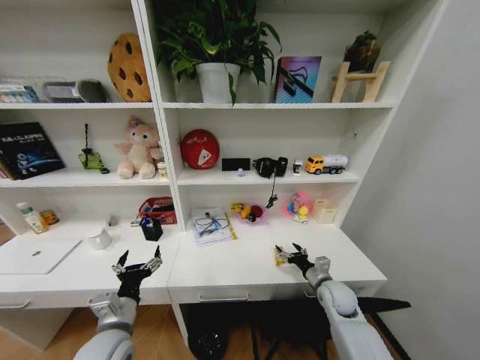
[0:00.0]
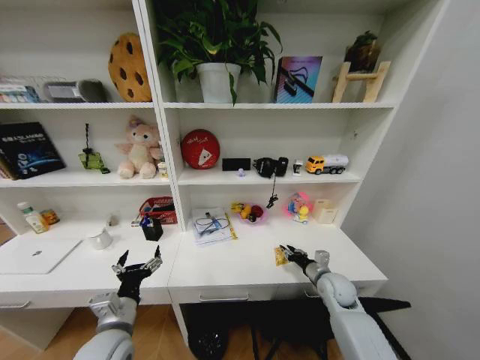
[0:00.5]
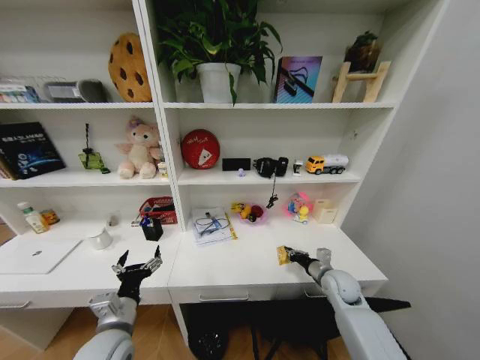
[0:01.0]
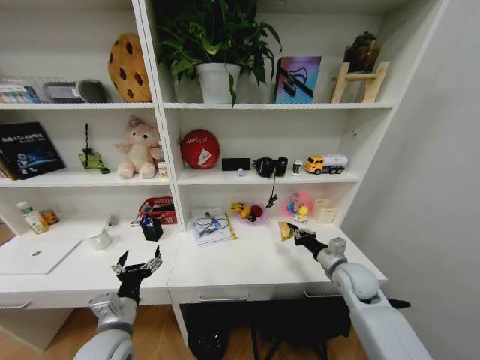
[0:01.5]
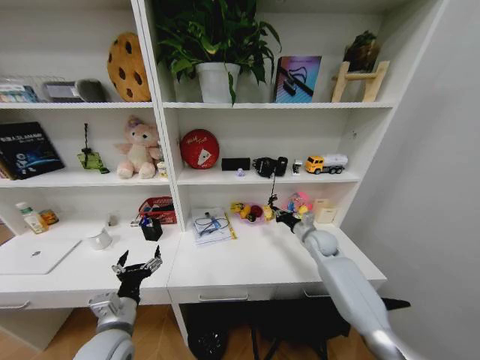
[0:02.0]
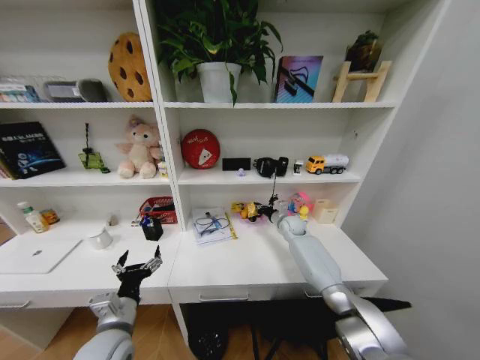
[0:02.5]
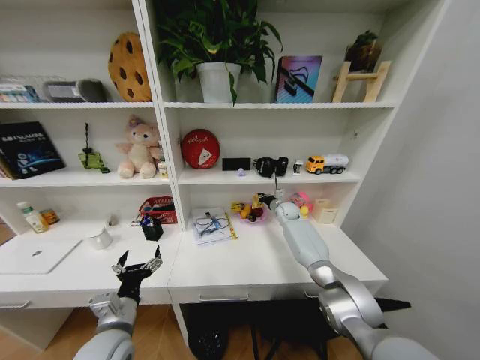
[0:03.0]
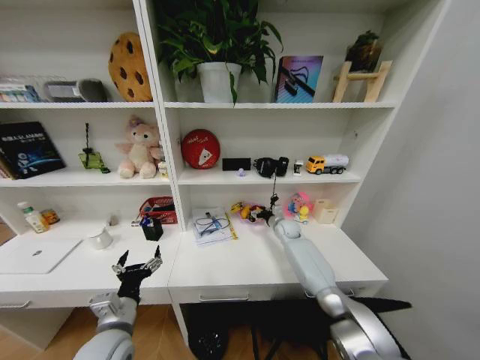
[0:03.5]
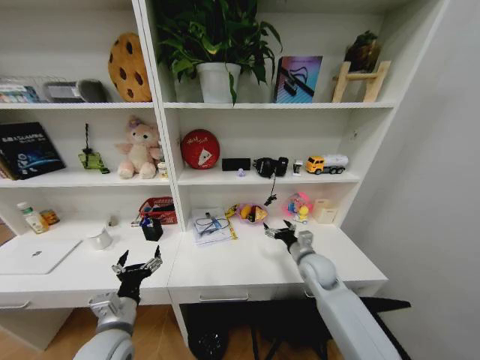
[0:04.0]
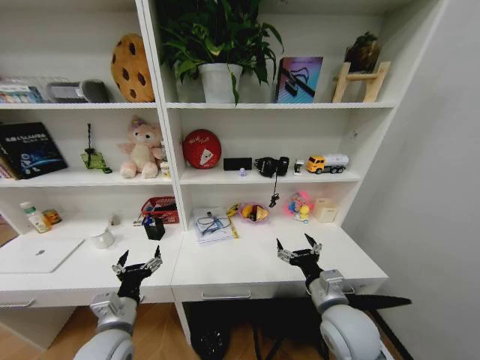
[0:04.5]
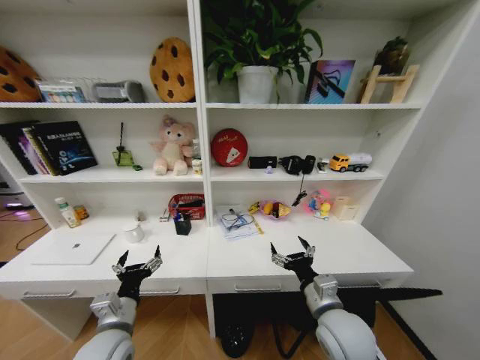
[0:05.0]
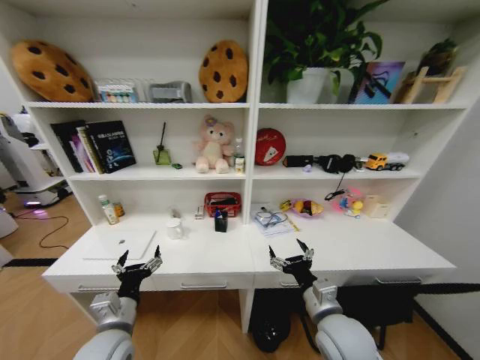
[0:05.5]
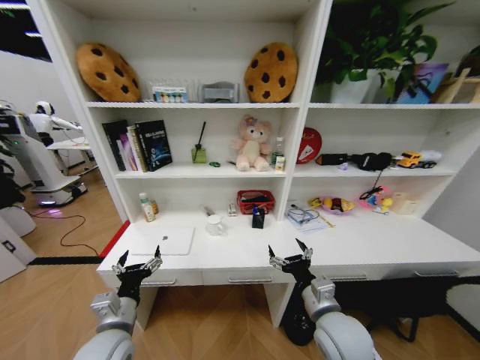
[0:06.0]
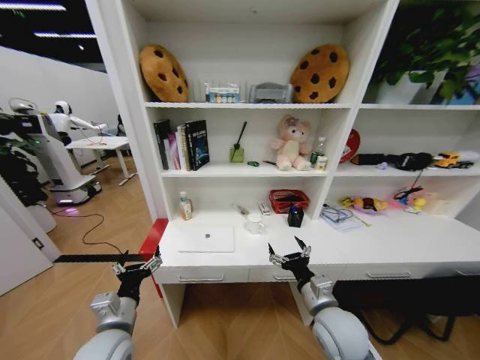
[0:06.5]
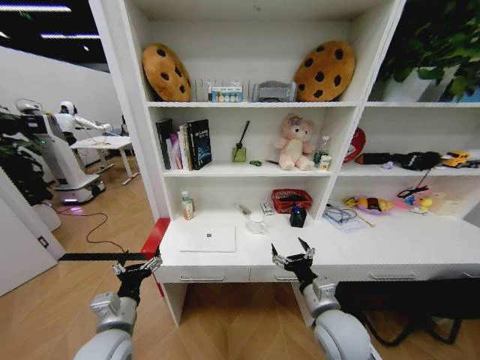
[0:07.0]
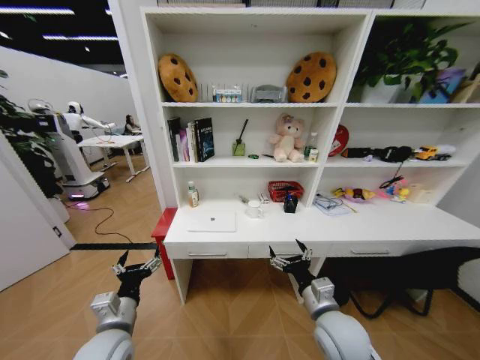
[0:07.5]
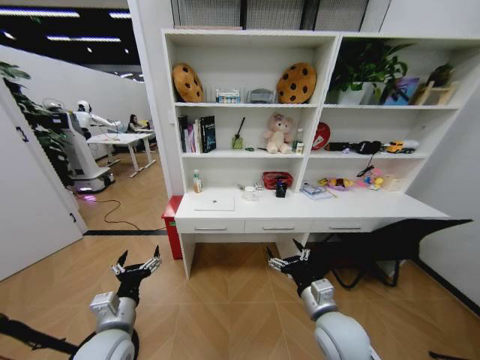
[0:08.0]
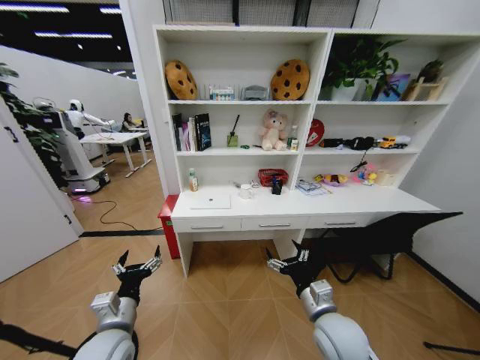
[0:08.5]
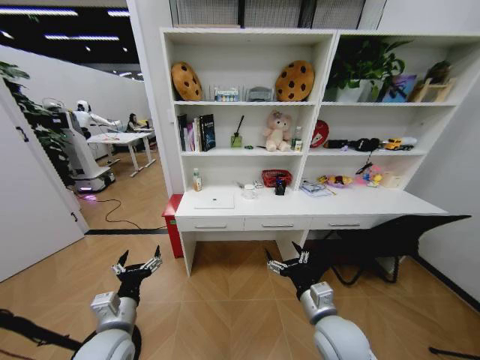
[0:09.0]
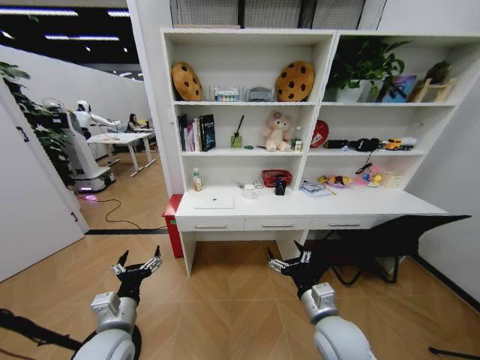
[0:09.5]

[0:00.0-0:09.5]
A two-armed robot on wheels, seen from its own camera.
Task of the whole recording: Organize the objects on the table.
0:00.0 to 0:02.0: The right gripper is displaced forward and upward by roughly 20 cm, and closes.
0:02.0 to 0:04.0: The right gripper moves backward and to the left, some 15 cm, and opens up.
0:04.0 to 0:05.5: The right gripper is displaced backward by approximately 20 cm.

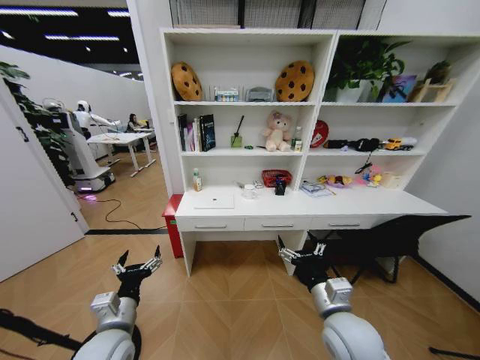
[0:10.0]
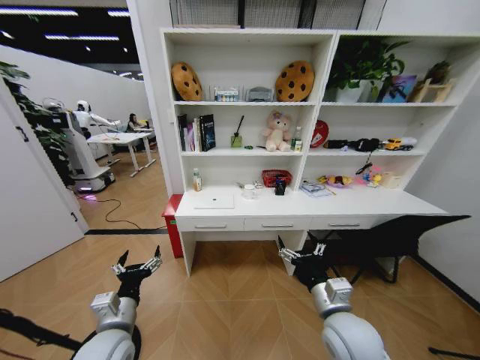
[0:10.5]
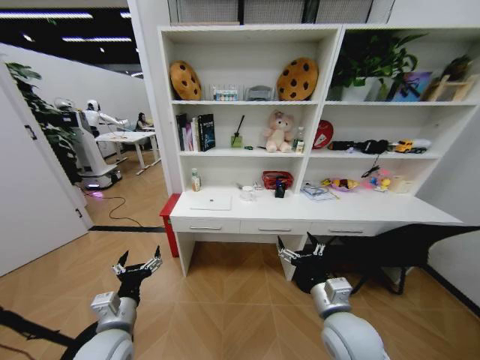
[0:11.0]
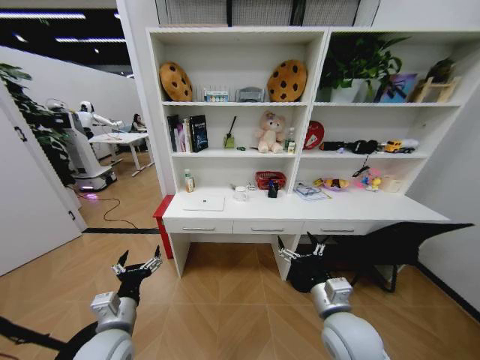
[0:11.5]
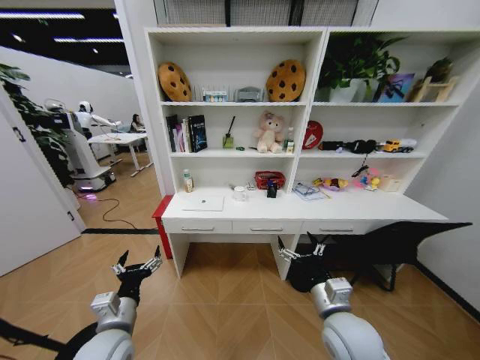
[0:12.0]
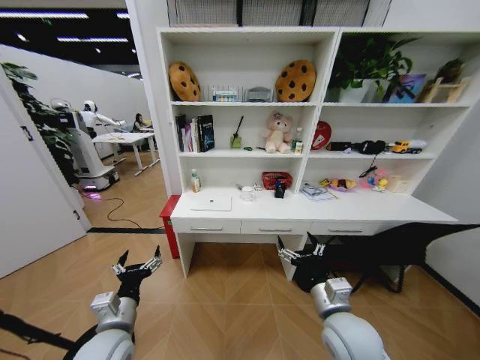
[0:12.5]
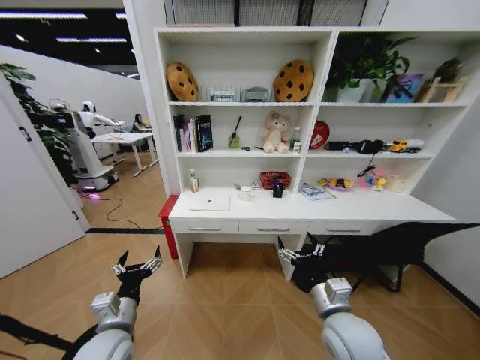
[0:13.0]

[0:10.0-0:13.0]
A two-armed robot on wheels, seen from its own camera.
Task of the whole recording: Organize the objects on the table.
0:11.5 to 0:13.0: Both grippers stay put.

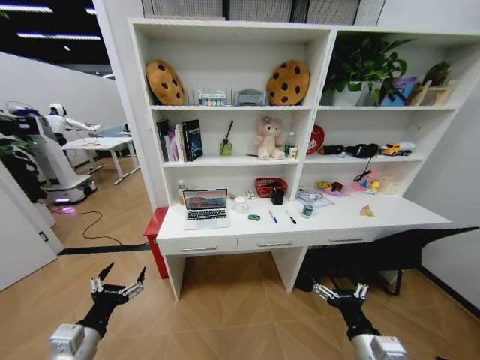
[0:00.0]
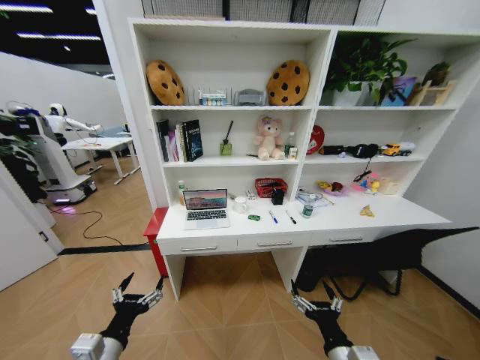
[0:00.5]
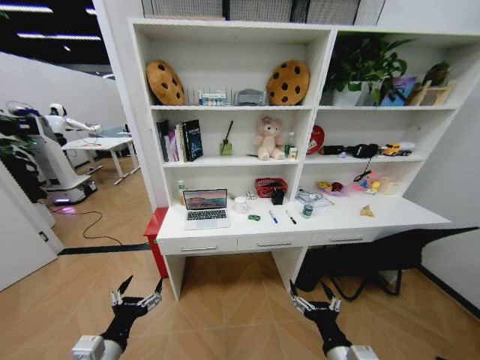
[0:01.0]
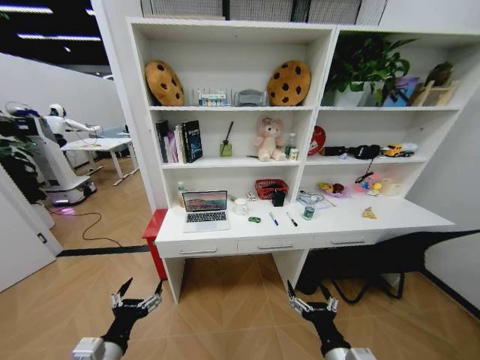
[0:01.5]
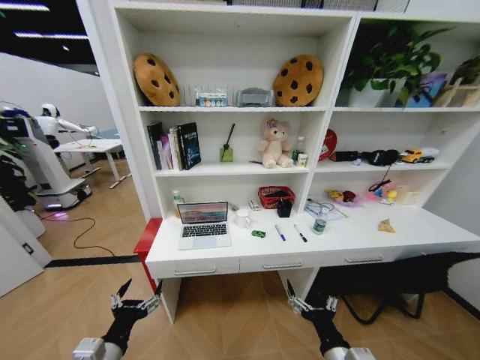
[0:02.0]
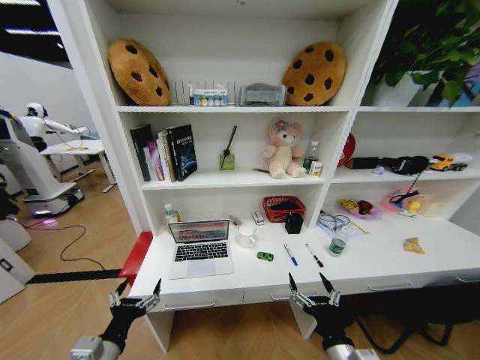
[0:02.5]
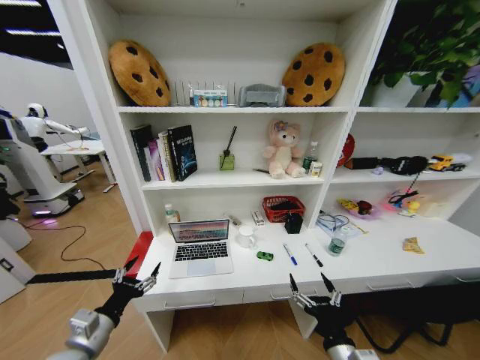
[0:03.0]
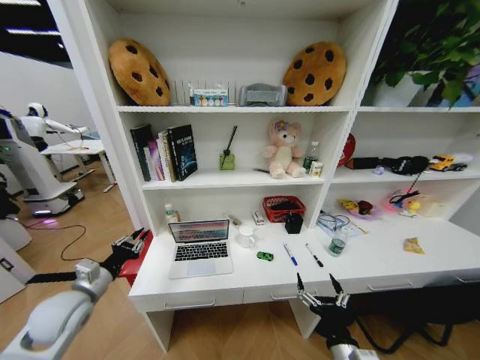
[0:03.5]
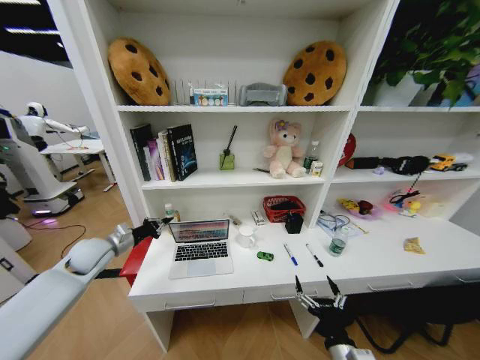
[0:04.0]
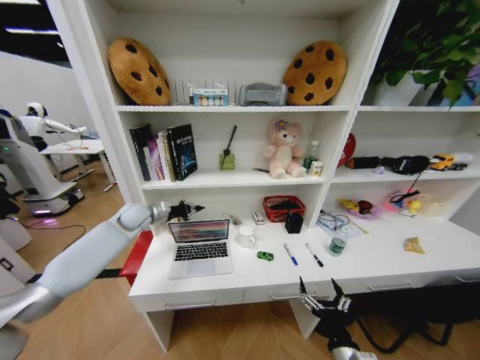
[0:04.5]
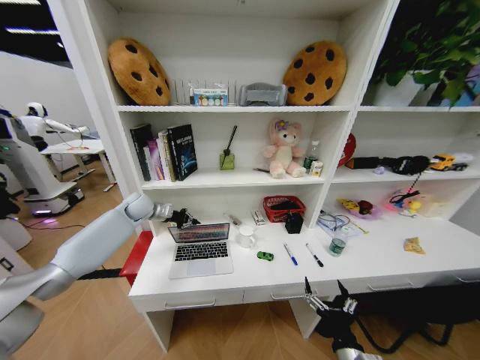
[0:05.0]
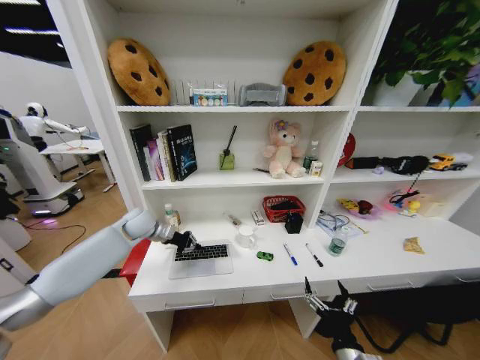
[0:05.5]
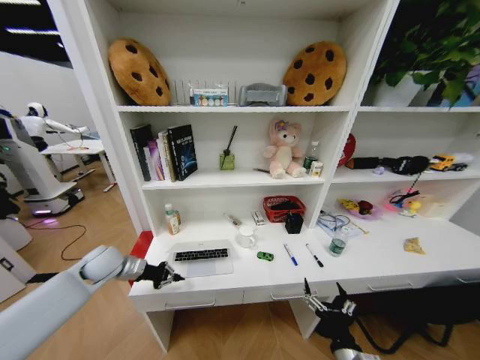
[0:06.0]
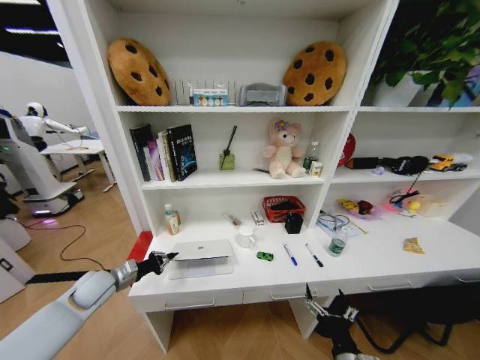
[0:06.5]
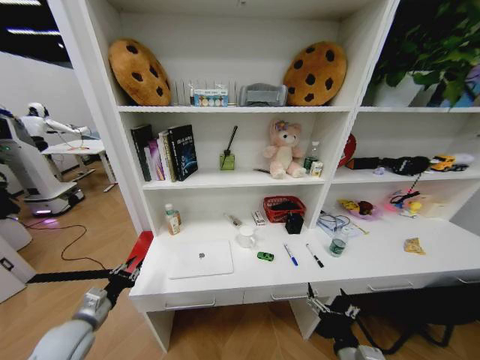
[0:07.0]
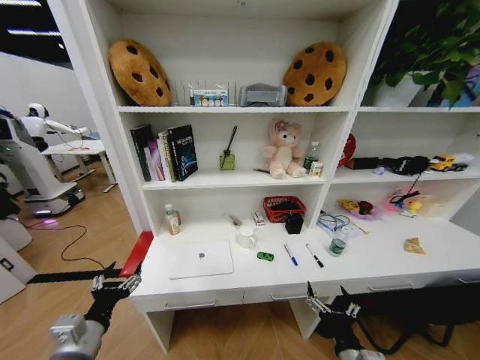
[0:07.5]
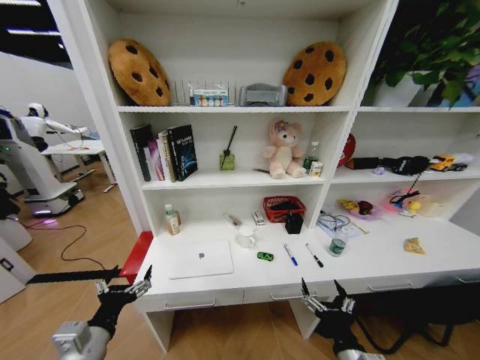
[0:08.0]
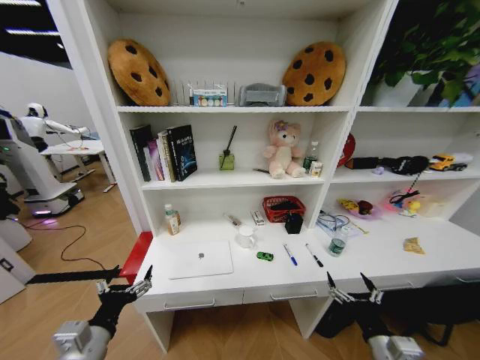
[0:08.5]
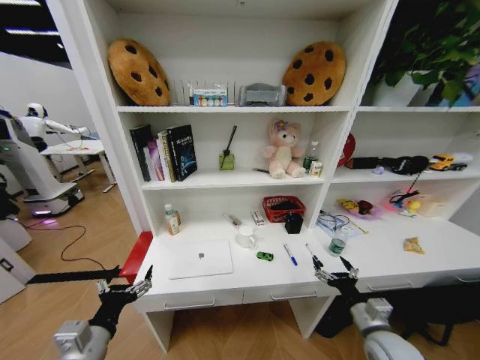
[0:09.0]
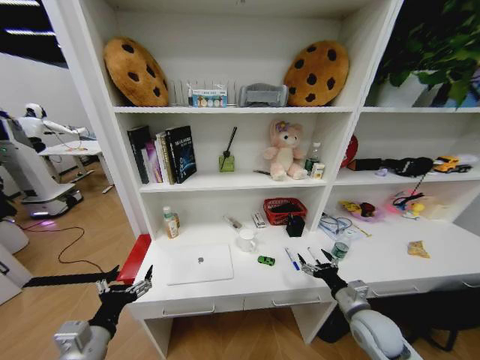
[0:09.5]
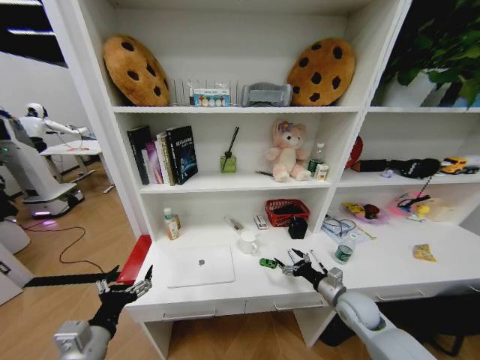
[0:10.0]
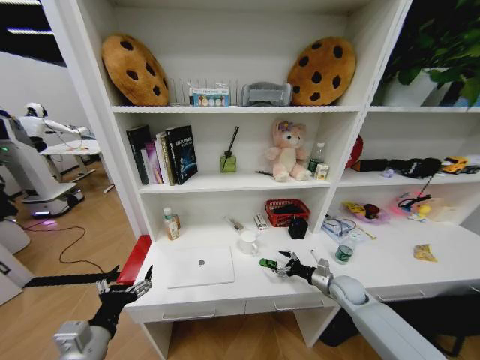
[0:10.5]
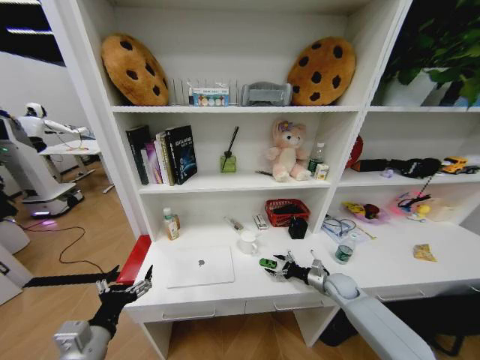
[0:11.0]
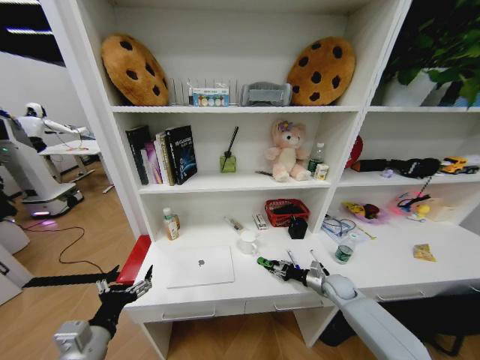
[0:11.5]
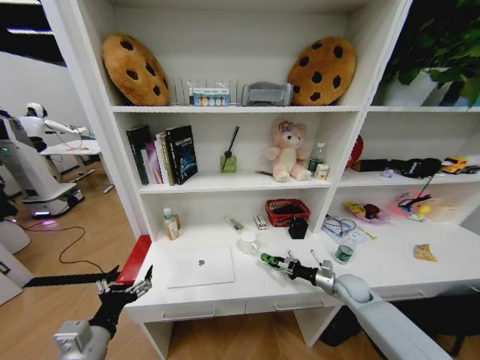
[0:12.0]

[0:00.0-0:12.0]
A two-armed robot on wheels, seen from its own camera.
Task of the whole recording: Organize the objects on the table.
0:02.0 to 0:04.0: The left gripper shifts roughly 30 cm forward and to the left, and closes.
0:04.0 to 0:06.0: The left gripper goes forward and returns, some 15 cm each way.
0:06.0 to 0:08.0: The left gripper heads backward, covering some 25 cm, and opens up.
0:08.0 to 0:10.0: The right gripper moves forward and to the right, about 20 cm.
0:10.0 to 0:12.0: The right gripper shifts approximately 5 cm forward, and closes its fingers.

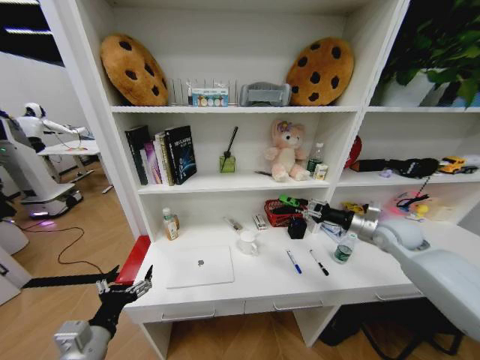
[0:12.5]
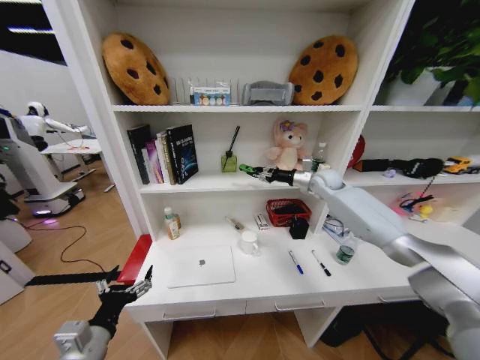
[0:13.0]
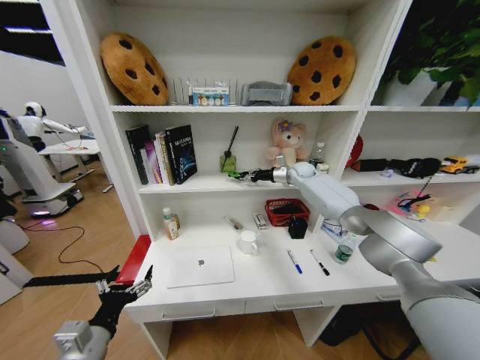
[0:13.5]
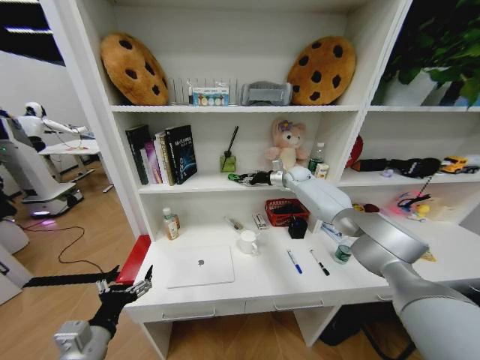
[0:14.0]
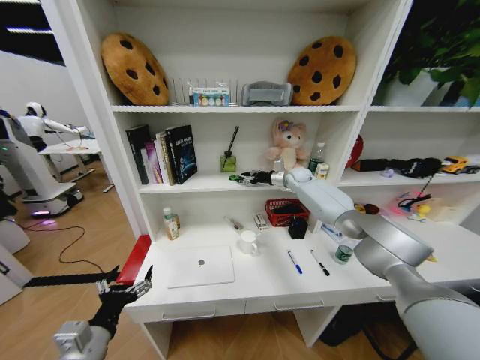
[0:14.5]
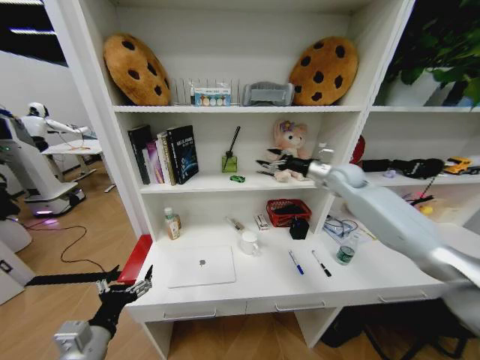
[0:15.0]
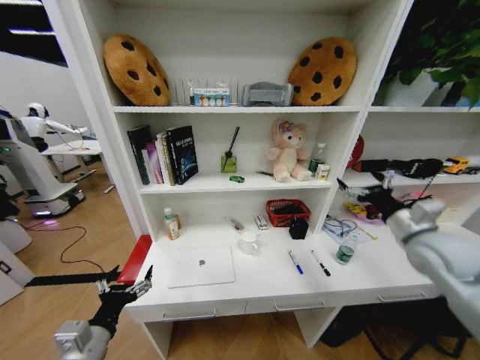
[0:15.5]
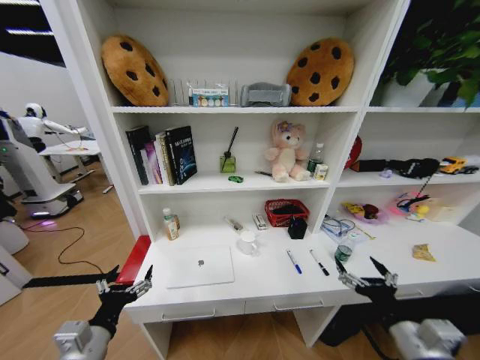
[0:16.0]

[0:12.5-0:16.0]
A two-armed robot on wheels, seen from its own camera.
Task of the whole recording: Organize the objects on the table.
0:12.5 to 0:14.5: The right gripper moves forward and to the left, about 35 cm.
0:14.5 to 0:16.0: The right gripper goes some 60 cm backward, and opens its fingers.
